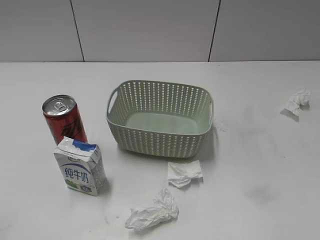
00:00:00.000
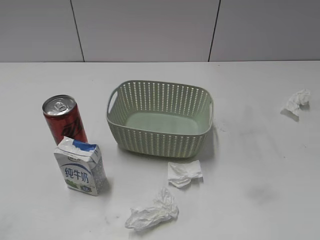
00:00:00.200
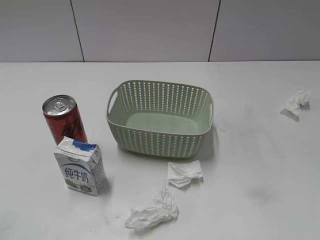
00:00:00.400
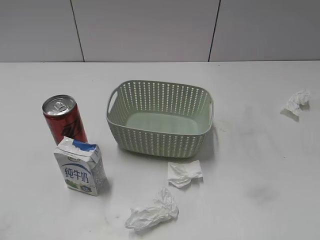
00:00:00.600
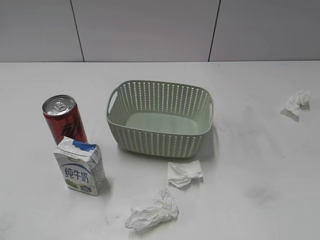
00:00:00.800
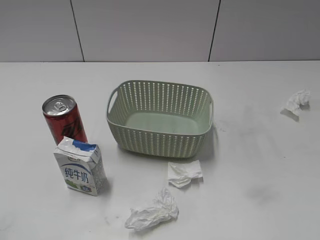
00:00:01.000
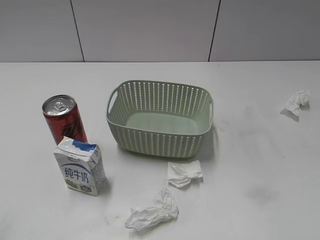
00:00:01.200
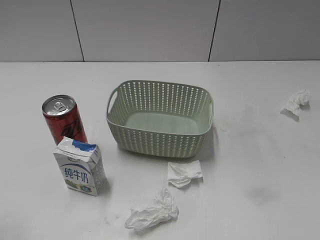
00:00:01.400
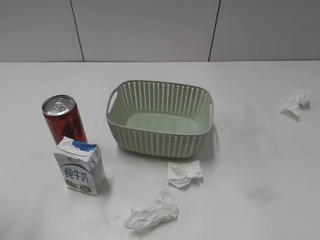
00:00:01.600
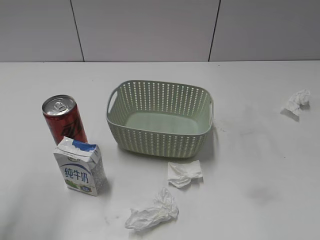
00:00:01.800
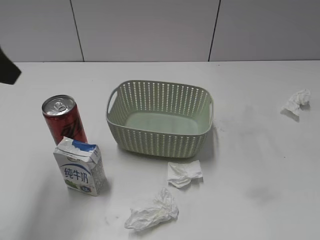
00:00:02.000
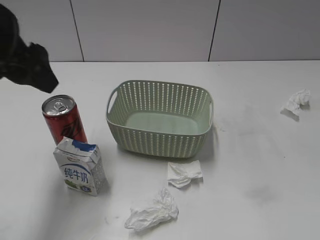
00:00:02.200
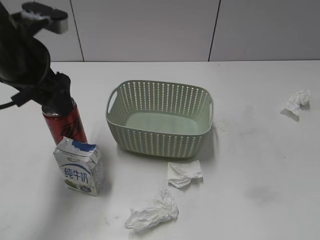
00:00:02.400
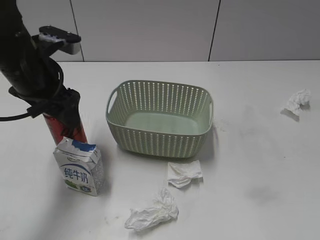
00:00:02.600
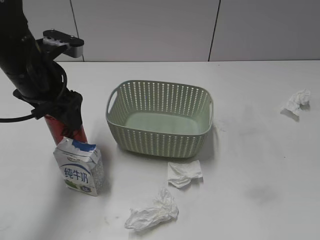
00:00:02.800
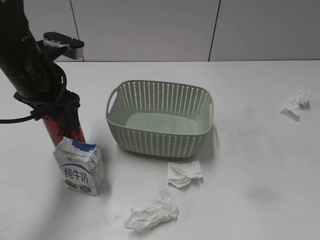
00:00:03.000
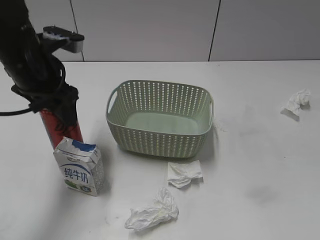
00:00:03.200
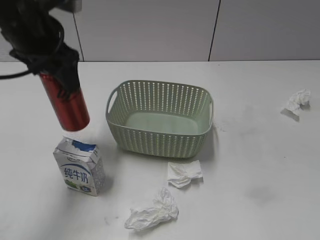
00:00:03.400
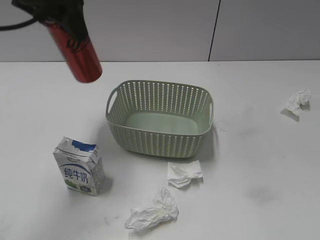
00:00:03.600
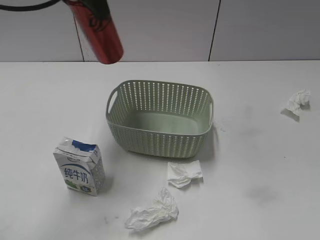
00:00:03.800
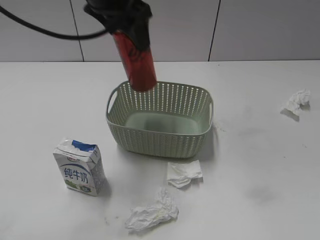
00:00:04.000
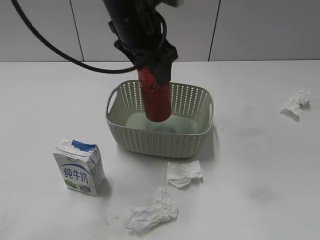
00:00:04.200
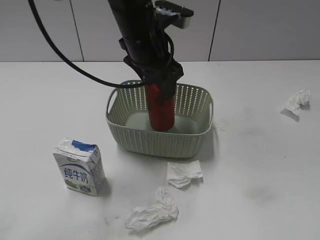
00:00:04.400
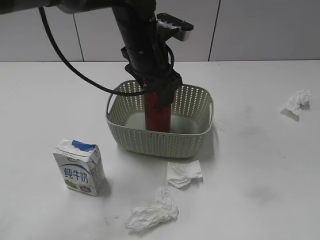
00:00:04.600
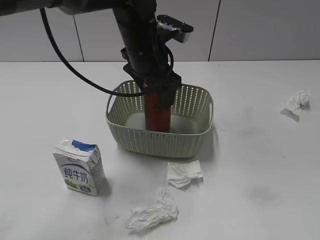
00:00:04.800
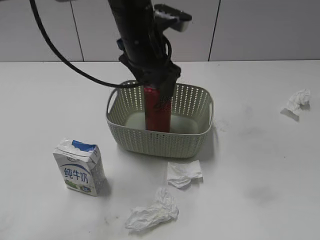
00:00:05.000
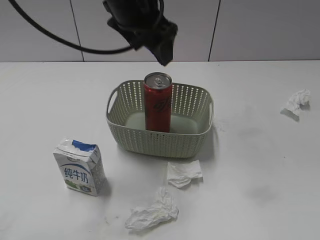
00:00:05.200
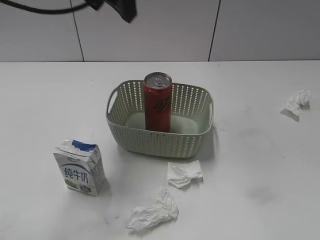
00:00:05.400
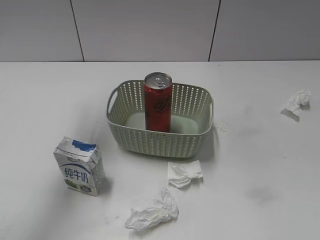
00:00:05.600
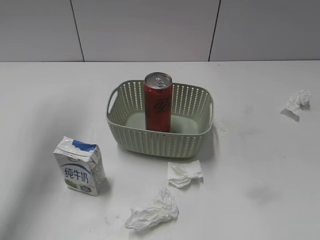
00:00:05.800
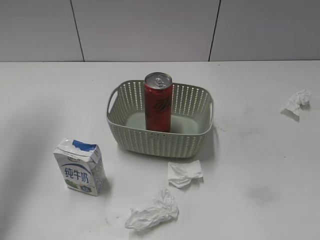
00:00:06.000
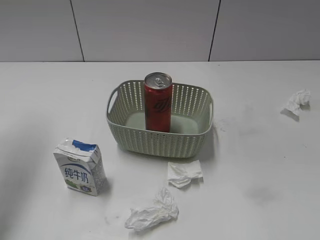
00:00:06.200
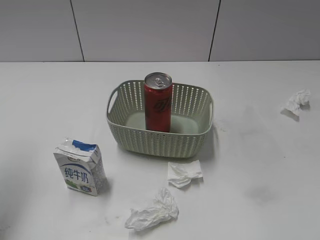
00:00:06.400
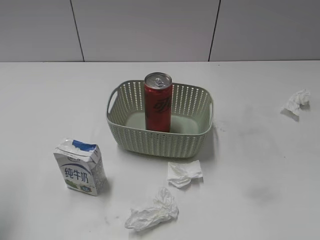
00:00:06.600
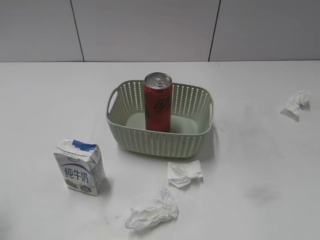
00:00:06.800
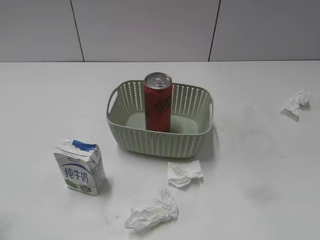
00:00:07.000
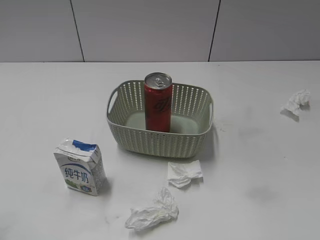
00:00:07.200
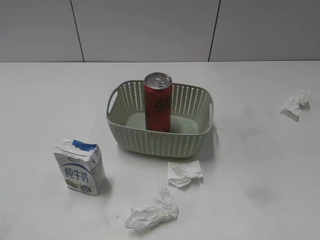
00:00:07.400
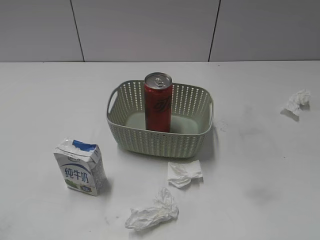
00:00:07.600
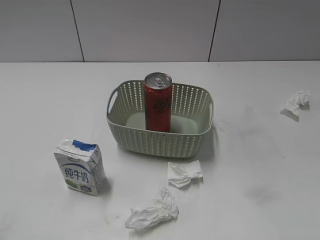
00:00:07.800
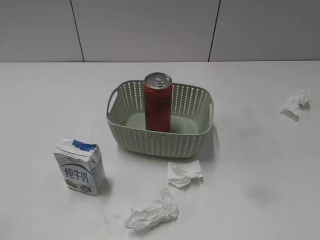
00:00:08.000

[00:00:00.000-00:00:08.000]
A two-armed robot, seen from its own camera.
Step, 00:00:02.000 to 00:00:03.000: Grasp the cola can with left gripper.
Step, 00:00:03.200 to 00:00:05.200: Place the cola can in the basket with left gripper.
00:00:01.600 to 00:00:03.200: The left gripper is displaced forward, to the right and downward by approximately 25 cm, and closes up.
00:00:03.200 to 00:00:04.800: The left gripper heads to the right, covering approximately 15 cm, and opens.
00:00:04.800 to 00:00:06.400: The left gripper heads to the left and upward, covering roughly 30 cm, and opens and closes again.
00:00:06.400 to 00:00:08.000: The left gripper goes approximately 25 cm backward.
